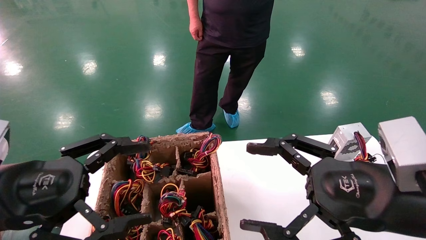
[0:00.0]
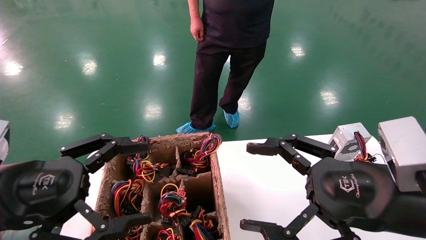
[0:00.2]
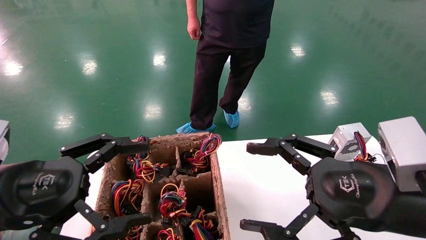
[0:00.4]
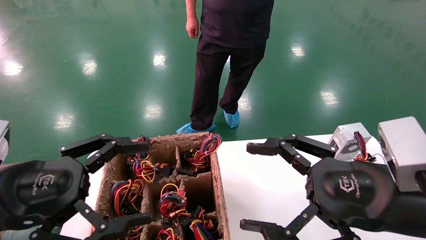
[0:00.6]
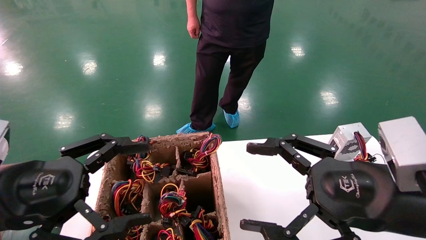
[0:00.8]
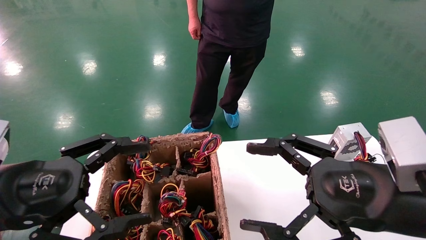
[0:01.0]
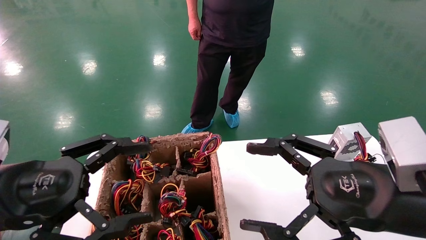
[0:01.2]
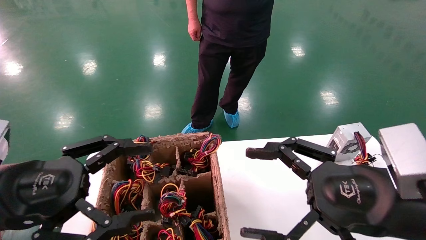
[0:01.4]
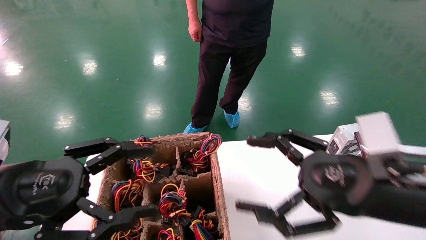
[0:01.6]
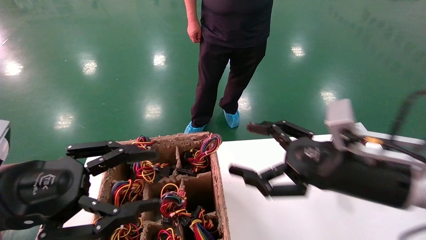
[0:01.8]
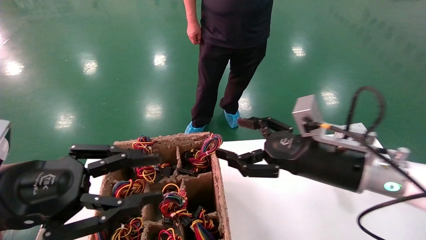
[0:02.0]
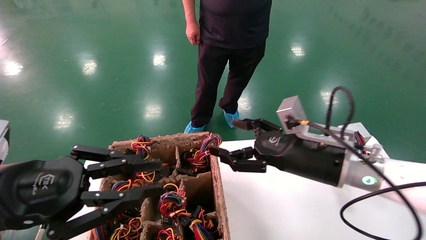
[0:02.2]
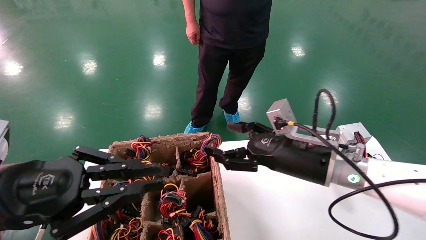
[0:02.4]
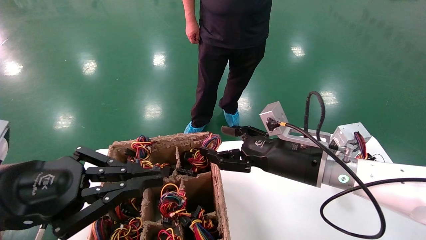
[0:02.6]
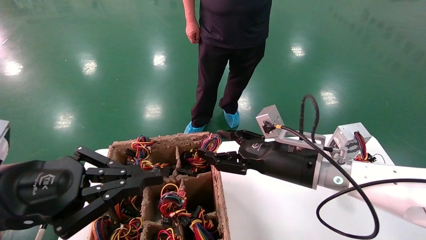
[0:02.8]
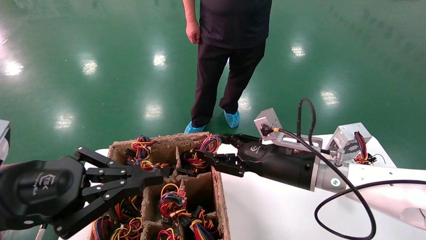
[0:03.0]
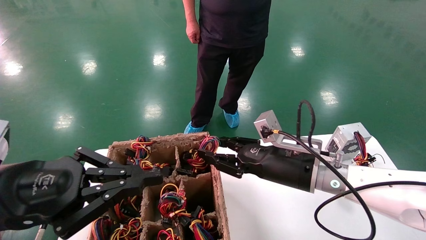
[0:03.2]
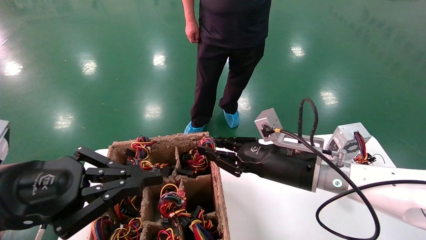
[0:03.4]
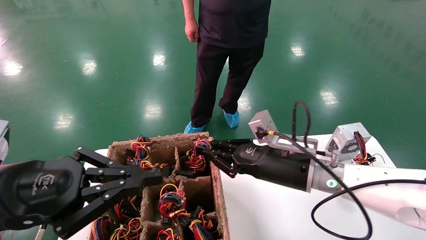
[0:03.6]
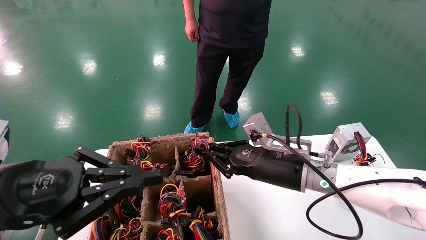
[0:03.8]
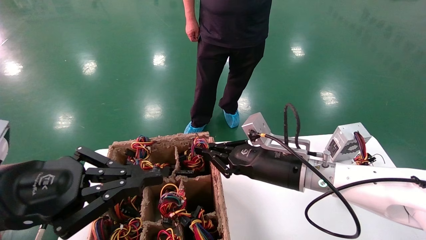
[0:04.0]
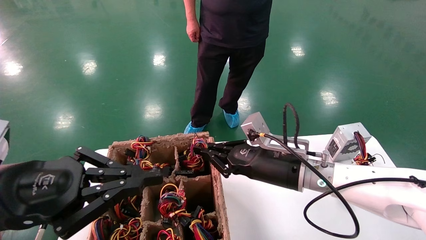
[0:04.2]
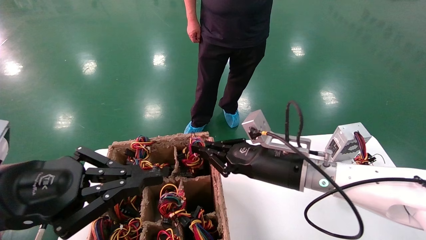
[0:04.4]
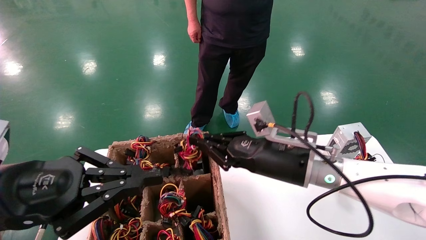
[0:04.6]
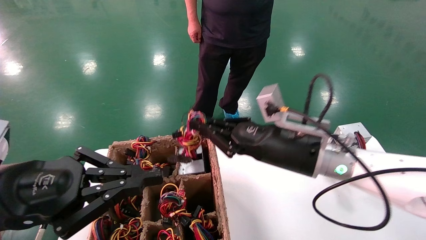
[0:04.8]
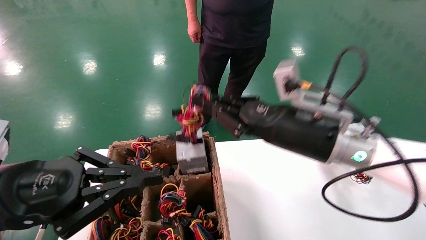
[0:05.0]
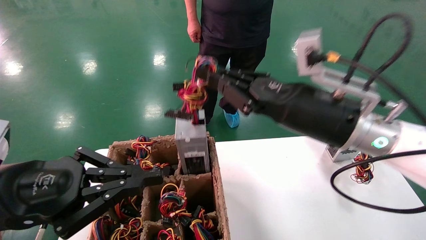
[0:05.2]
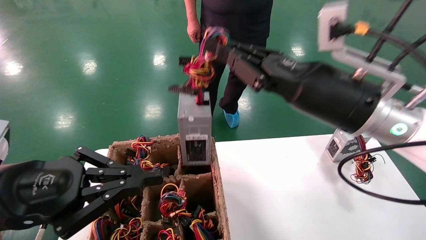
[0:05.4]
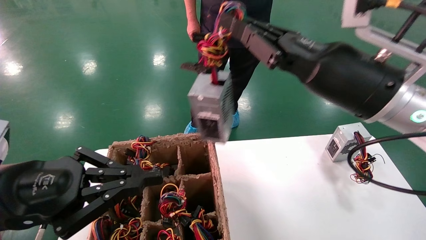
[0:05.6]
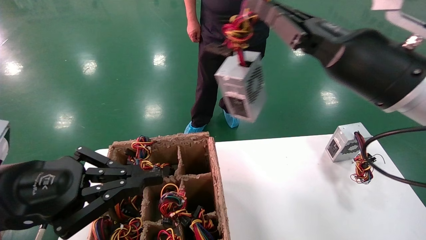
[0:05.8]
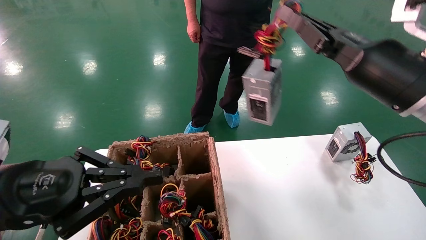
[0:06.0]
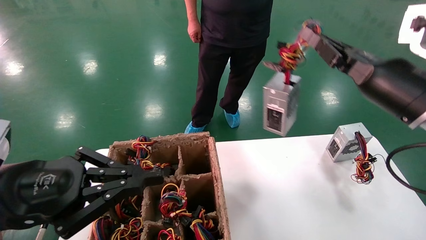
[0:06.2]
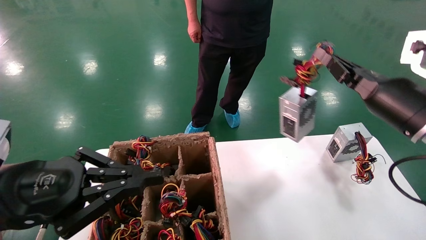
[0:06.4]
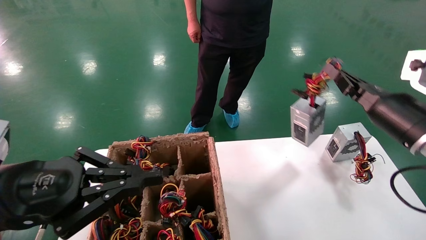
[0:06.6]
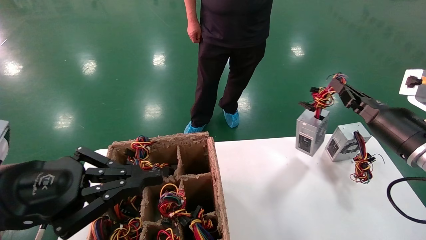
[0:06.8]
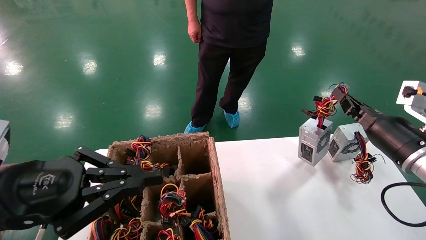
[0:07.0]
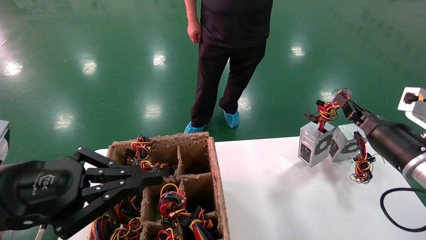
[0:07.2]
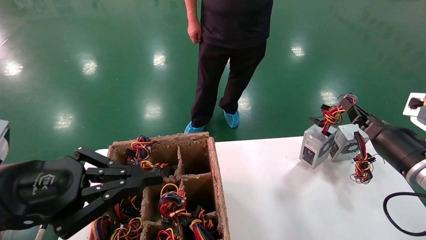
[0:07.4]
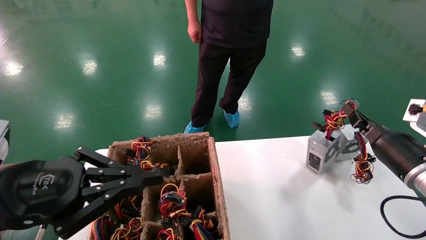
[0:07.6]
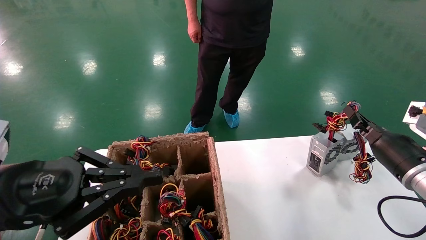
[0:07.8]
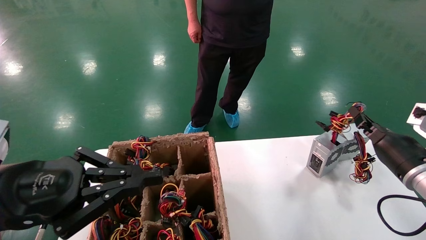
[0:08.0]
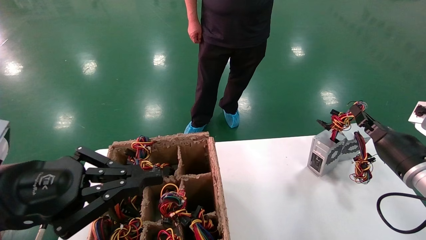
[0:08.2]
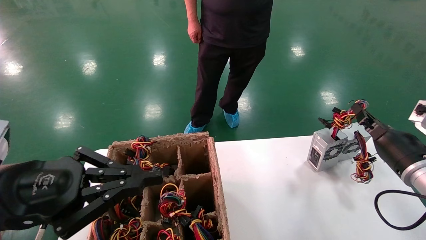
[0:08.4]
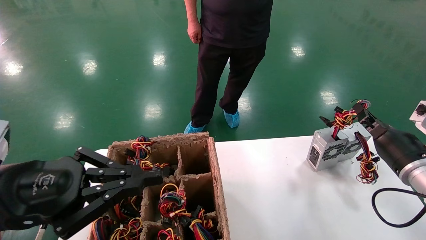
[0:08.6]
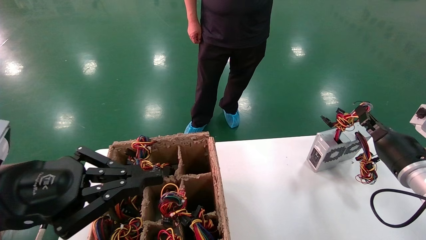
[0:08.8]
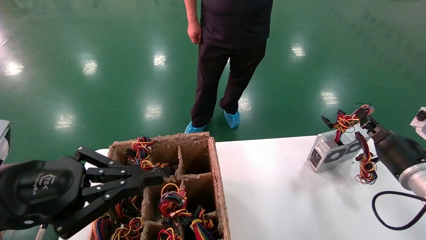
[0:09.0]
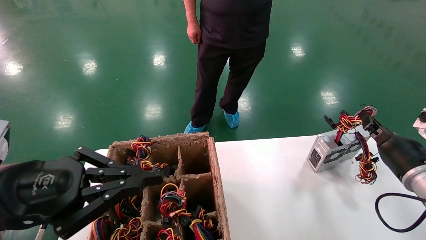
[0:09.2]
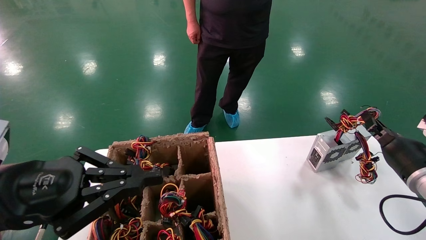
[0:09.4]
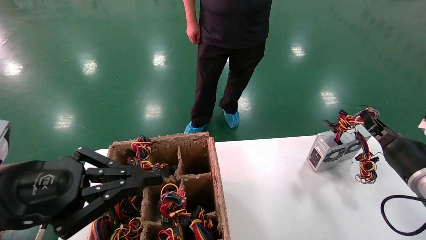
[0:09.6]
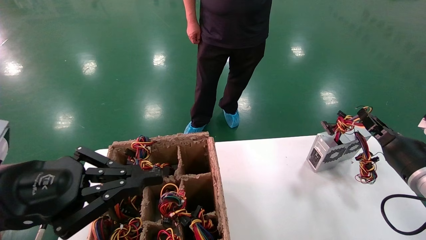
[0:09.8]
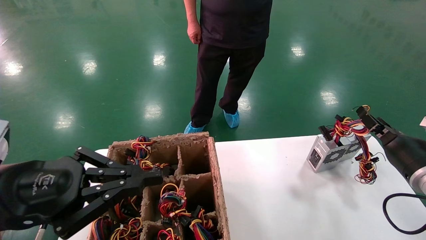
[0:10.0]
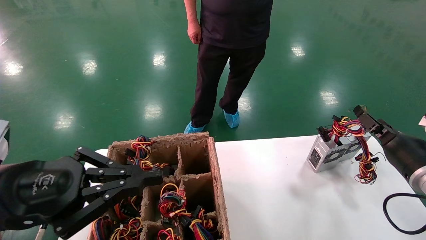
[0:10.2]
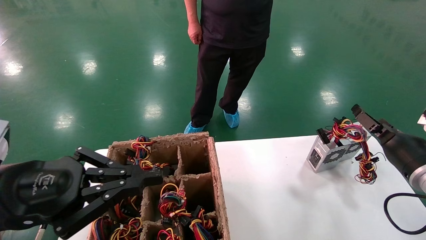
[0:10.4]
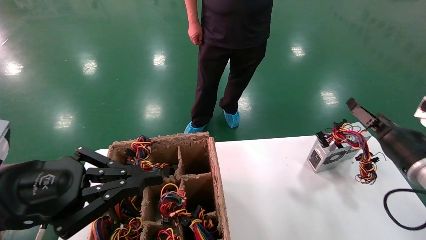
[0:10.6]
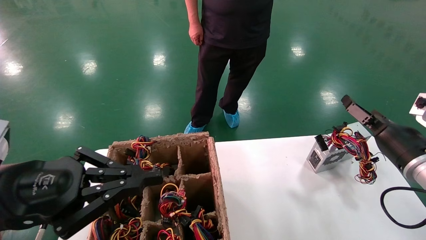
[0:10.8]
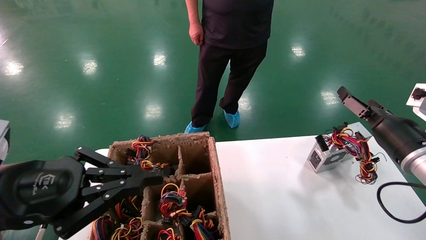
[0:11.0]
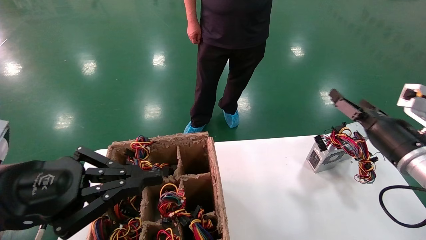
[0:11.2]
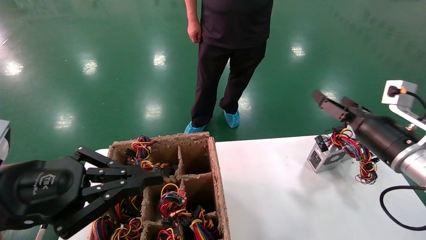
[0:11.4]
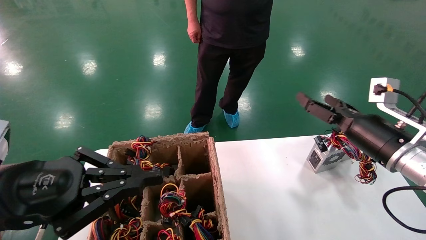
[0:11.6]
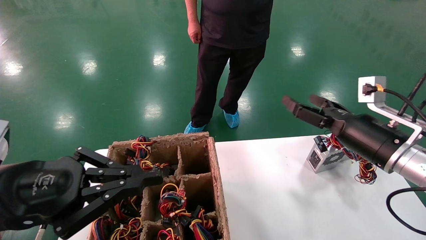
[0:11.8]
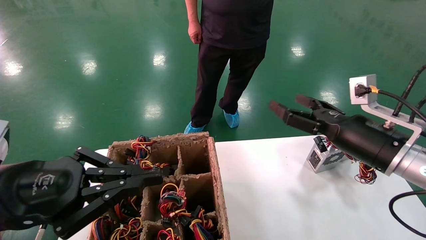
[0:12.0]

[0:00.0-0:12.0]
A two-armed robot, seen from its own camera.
Step, 0:01.6 to 0:03.8: Grab the main unit power supply from the containment box.
Step, 0:04.0 to 0:10.4: Place the main unit power supply in the designated area.
0:00.0 to 0:01.6: The grippers make only small movements.
0:01.6 to 0:03.0: The left gripper closes up. The right gripper heads forward, to the left and downward, covering roughly 15 cm.
0:03.0 to 0:04.4: The right gripper closes up.
0:04.4 to 0:06.0: The right gripper shifts roughly 20 cm upward and to the right.
0:06.0 to 0:07.6: The right gripper shifts roughly 20 cm downward and to the right.
0:07.6 to 0:09.0: The grippers make only small movements.
0:09.0 to 0:10.4: The right gripper opens.
0:10.4 to 0:12.0: The right gripper travels to the left and upward by approximately 10 cm.

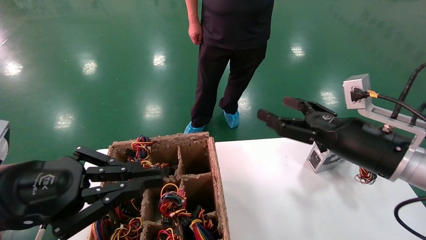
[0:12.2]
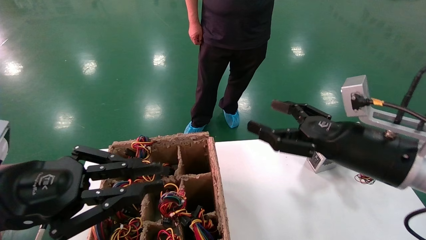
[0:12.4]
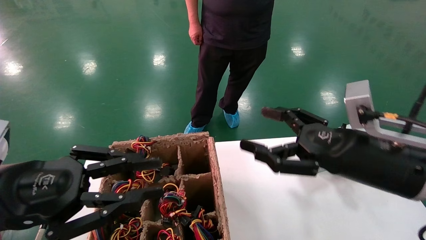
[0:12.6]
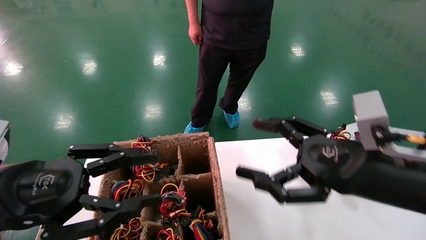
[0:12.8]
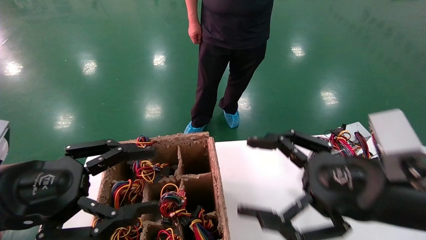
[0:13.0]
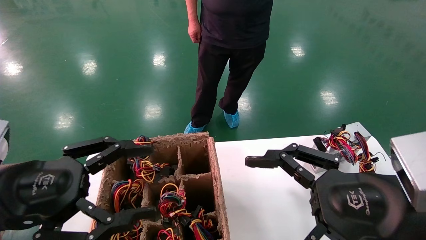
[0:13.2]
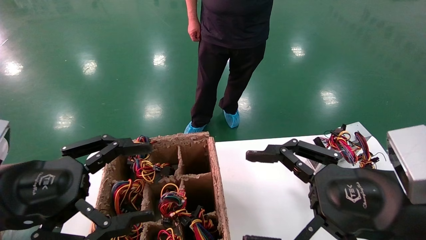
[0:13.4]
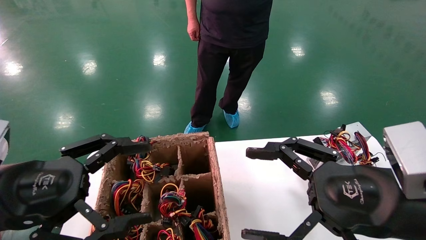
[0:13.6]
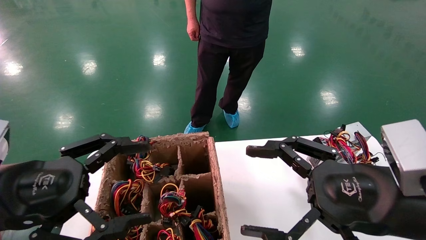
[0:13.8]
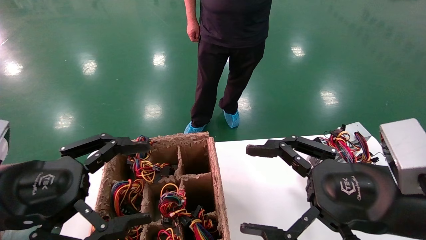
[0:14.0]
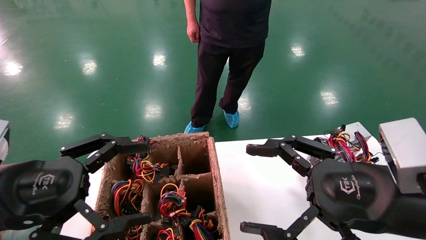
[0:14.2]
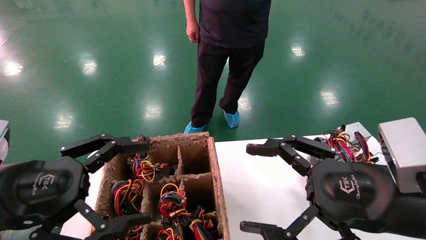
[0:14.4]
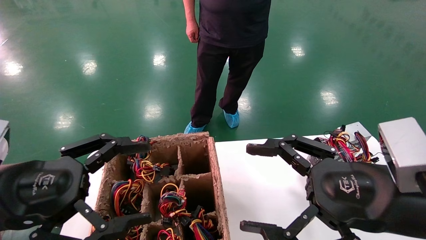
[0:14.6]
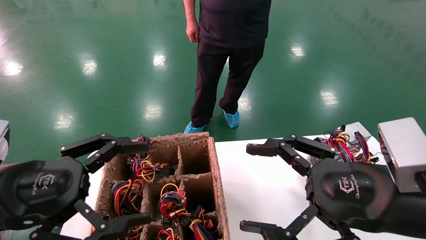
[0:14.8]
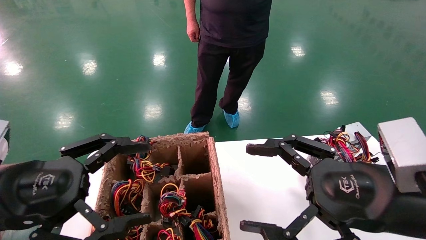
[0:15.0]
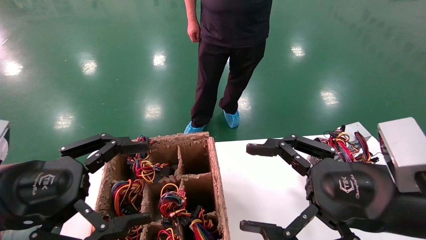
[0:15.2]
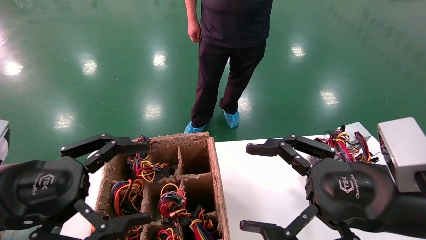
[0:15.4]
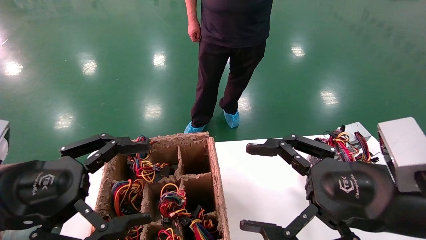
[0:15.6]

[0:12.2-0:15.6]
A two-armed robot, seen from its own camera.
0:12.2 to 0:13.8: The right gripper moves backward, about 10 cm; the left gripper opens.
0:13.8 to 0:15.6: The two grippers keep their place.
